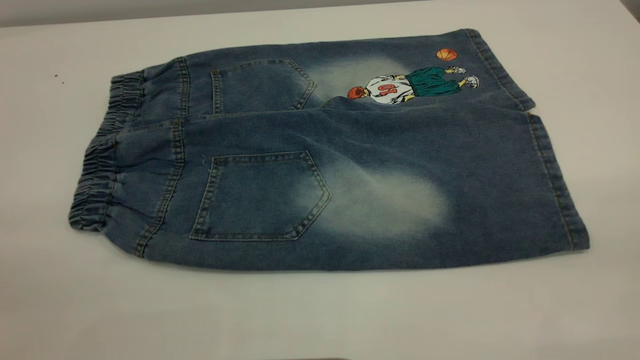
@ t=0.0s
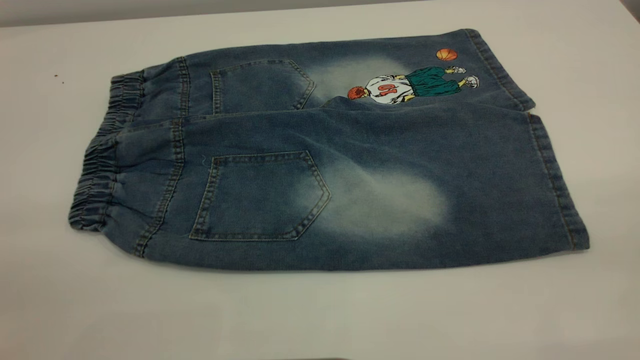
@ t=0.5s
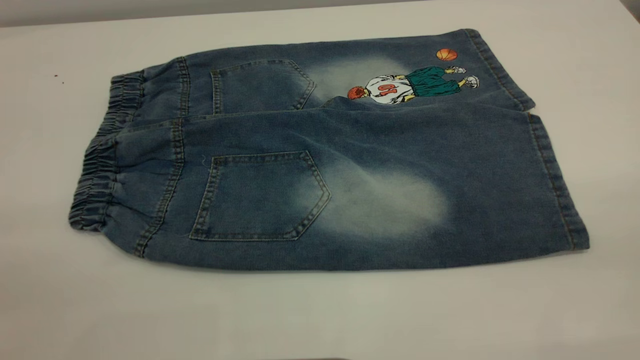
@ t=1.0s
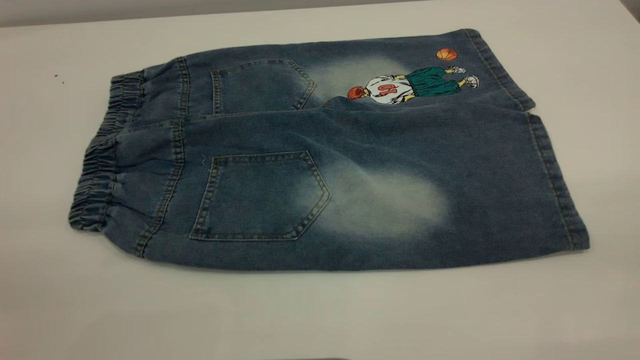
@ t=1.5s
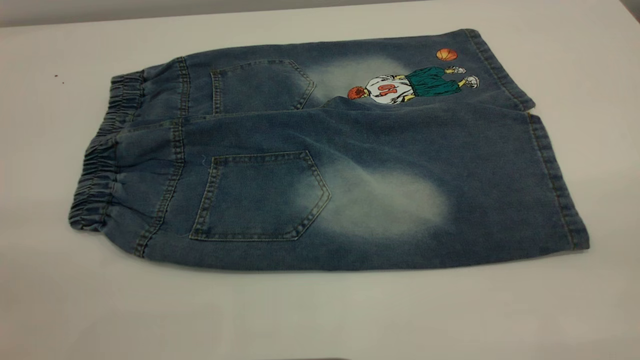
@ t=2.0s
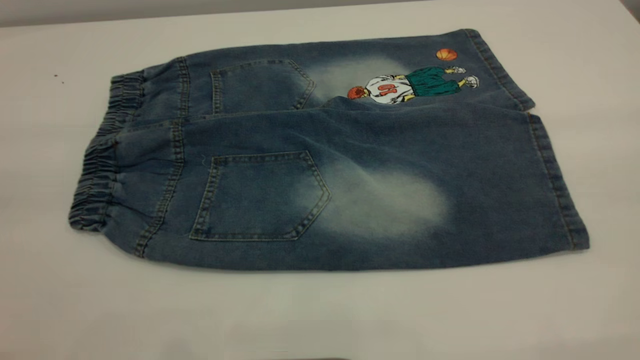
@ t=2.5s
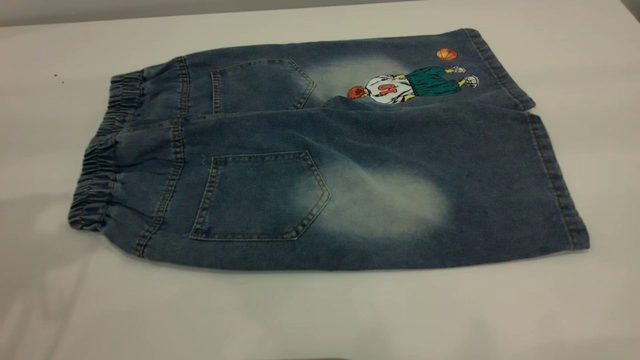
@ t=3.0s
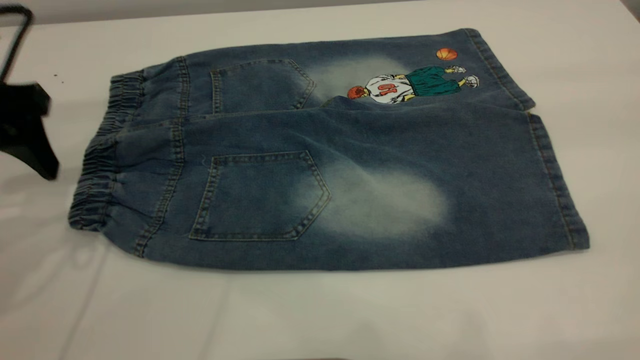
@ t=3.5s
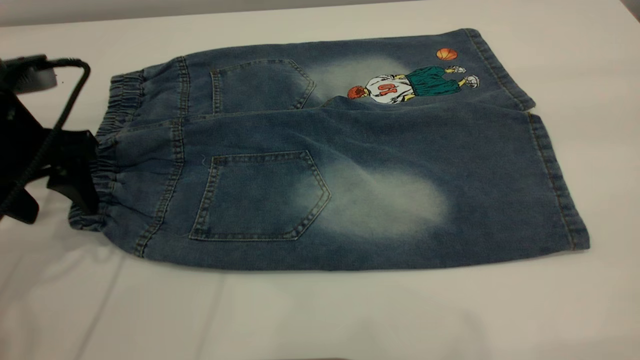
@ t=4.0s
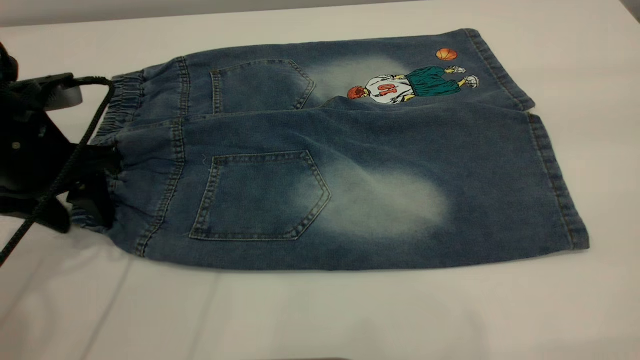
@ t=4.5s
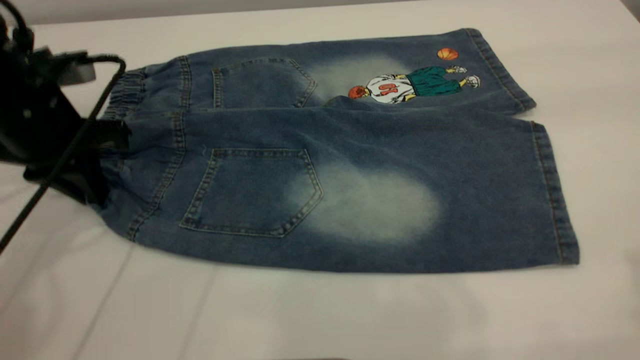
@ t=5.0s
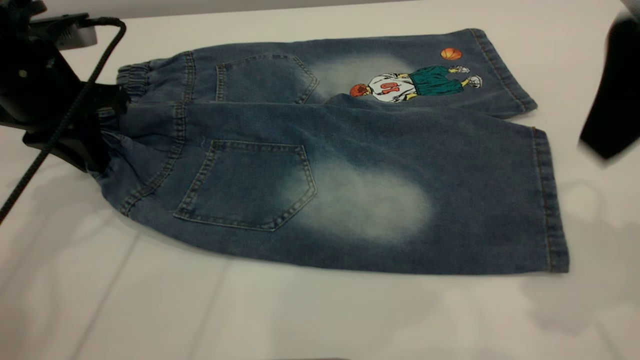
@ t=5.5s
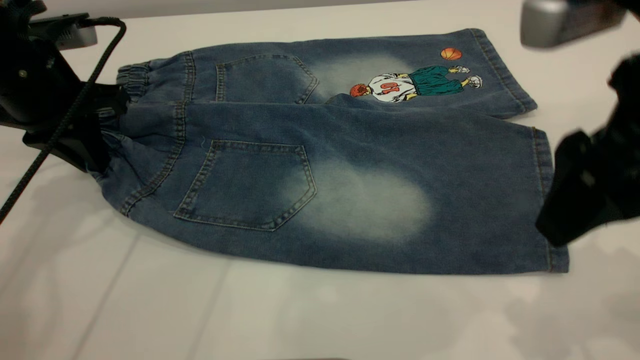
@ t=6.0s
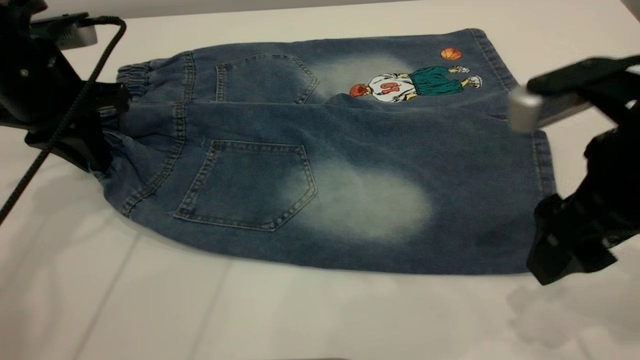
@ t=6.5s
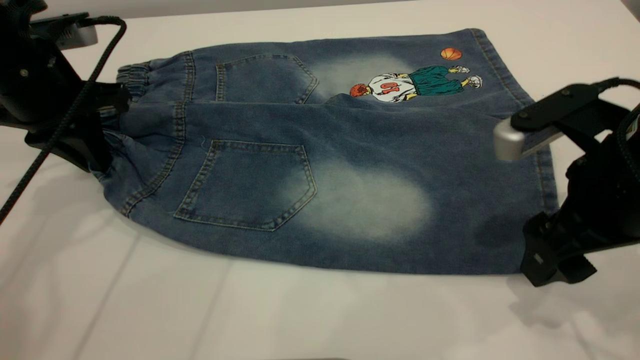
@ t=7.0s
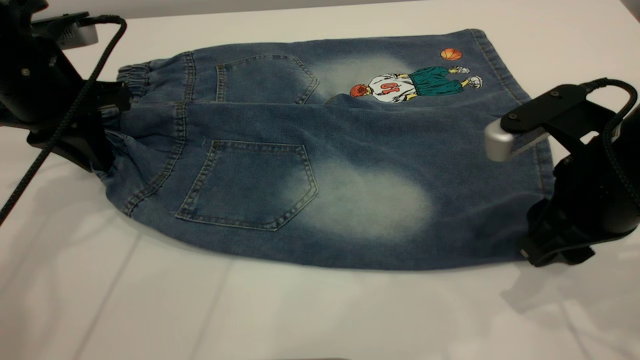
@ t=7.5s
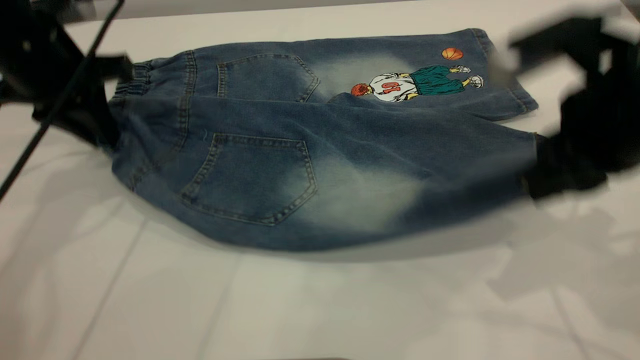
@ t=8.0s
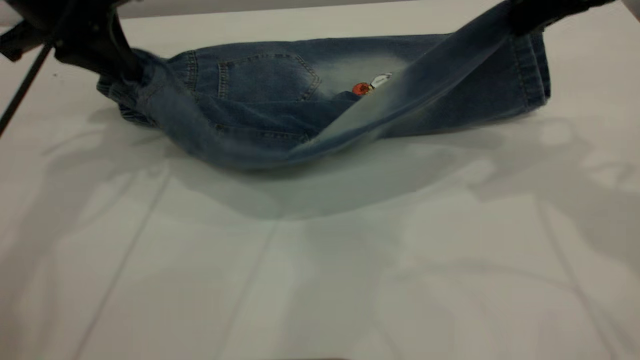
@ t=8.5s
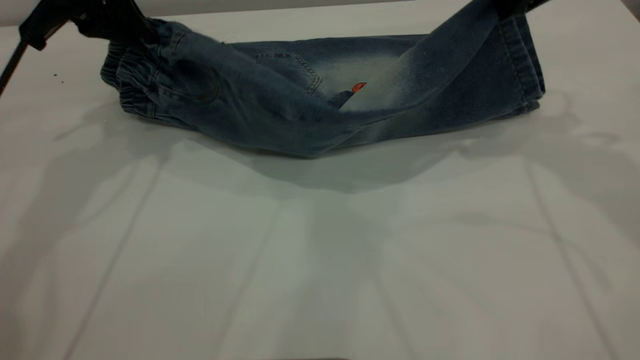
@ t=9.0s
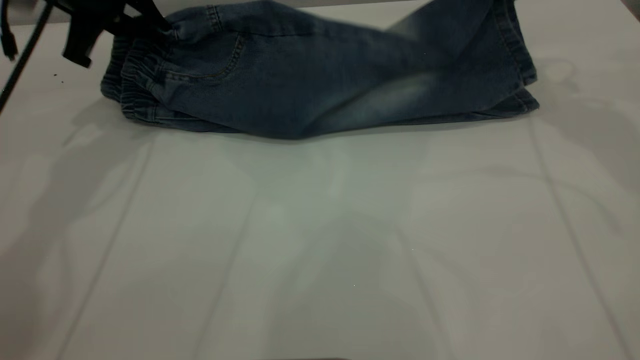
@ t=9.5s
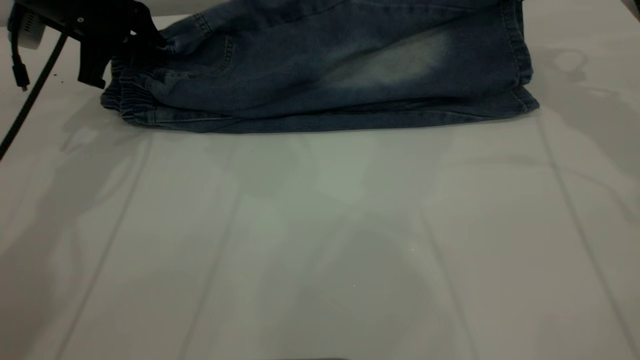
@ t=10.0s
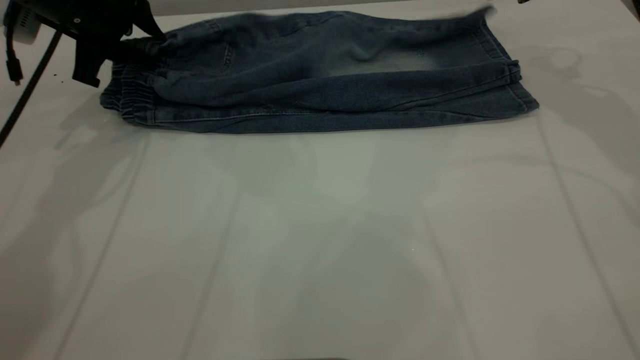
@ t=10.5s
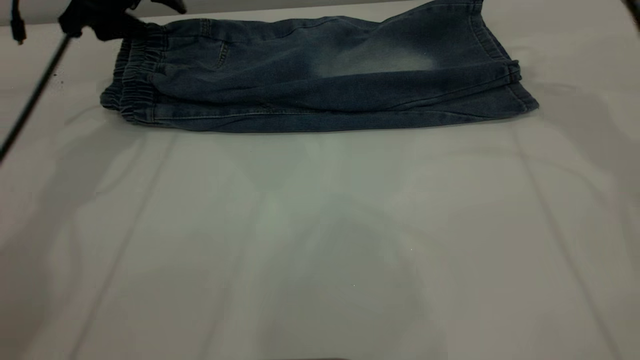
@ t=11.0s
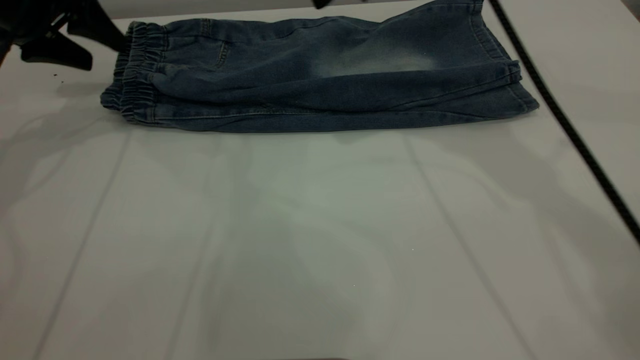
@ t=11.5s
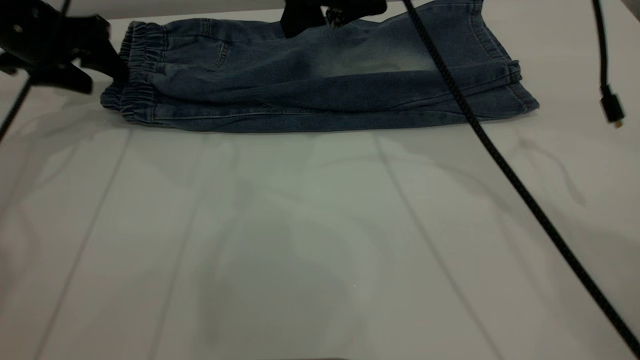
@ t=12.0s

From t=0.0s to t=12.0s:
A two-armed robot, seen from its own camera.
Step, from t=0.0s to t=11.0s: Fold the bottom of the pants upward.
From t=0.0s to t=2.0s: Both grippers stay put.
From t=2.0s to t=4.0s: The left gripper is displaced forward and downward by approximately 35 cm.
From t=4.0s to t=6.0s: The right gripper is displaced downward, forward and to the left by about 25 cm. Meanwhile the left gripper is displaced forward by some 5 cm, and closes up.
From t=6.0s to t=8.0s: The right gripper goes downward and returns, about 10 cm each way, and closes.
From t=8.0s to t=10.0s: The right gripper travels forward by some 20 cm. The left gripper is displaced forward by approximately 5 cm.
From t=10.0s to t=12.0s: The right gripper moves to the left, roughly 20 cm, and opens up. Meanwhile the left gripper moves to the left, roughly 5 cm, and opens up.

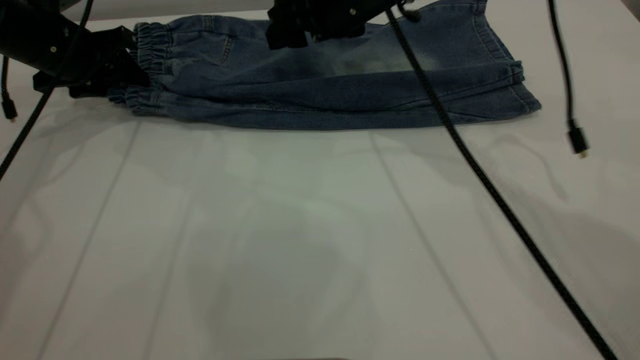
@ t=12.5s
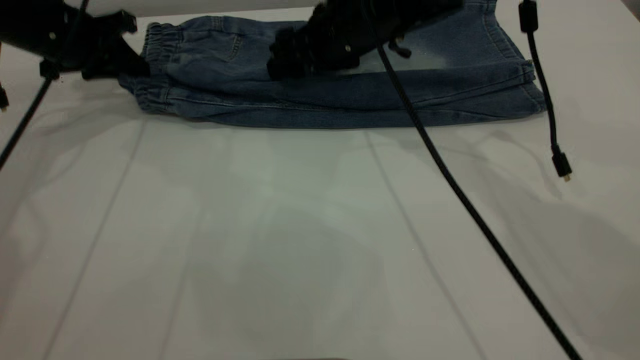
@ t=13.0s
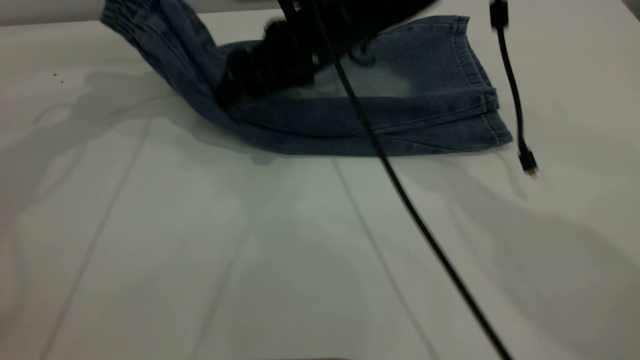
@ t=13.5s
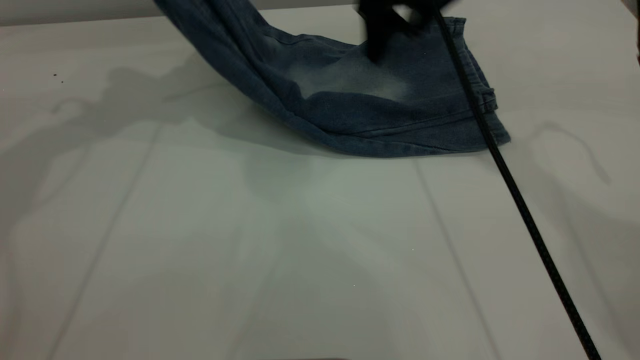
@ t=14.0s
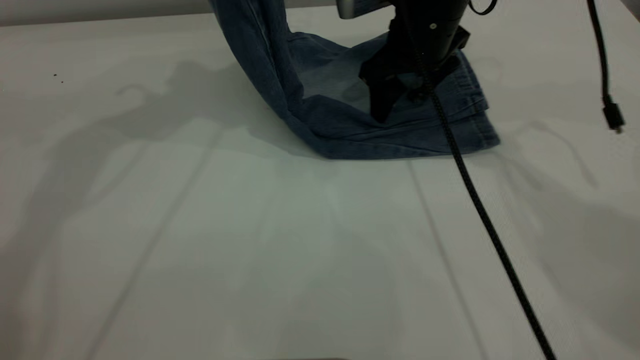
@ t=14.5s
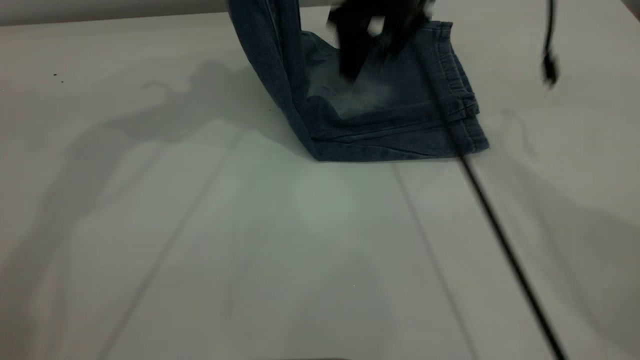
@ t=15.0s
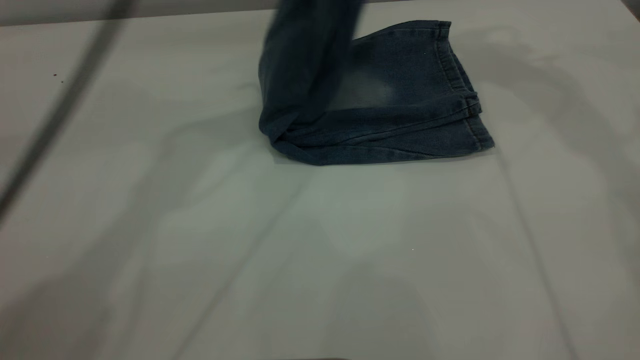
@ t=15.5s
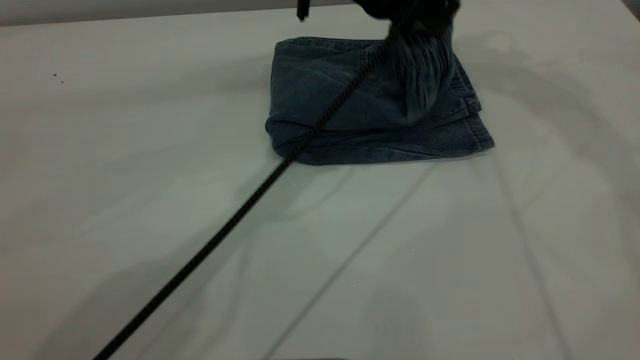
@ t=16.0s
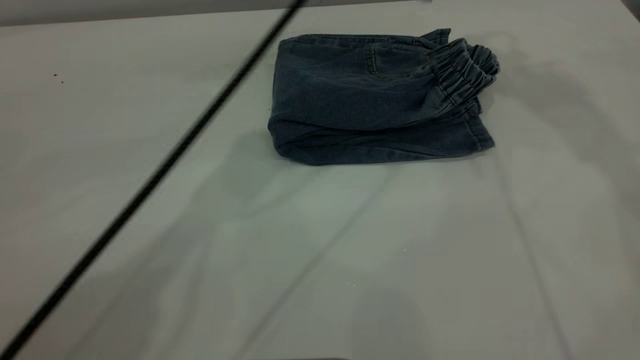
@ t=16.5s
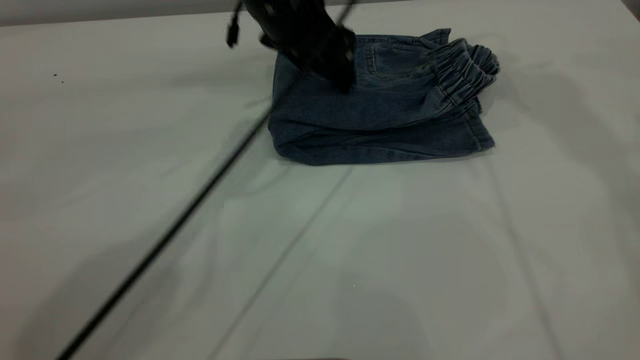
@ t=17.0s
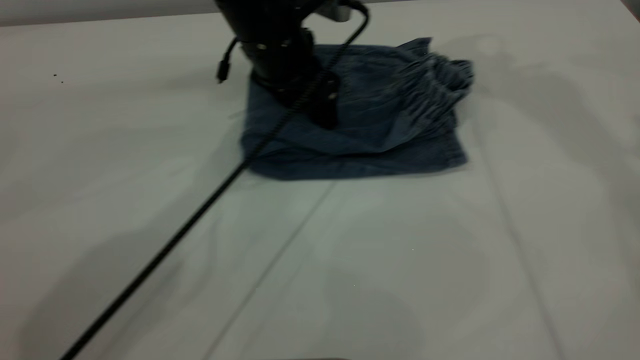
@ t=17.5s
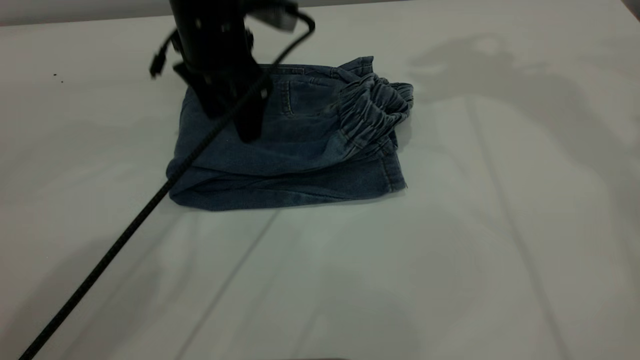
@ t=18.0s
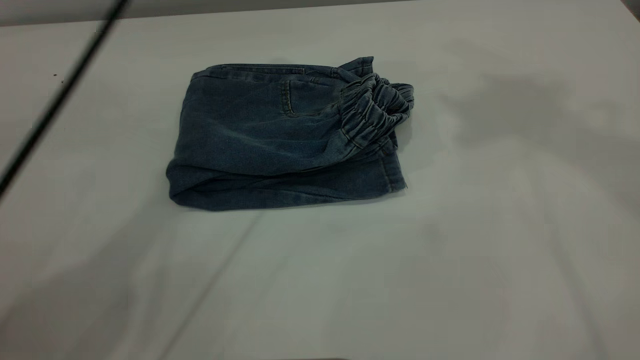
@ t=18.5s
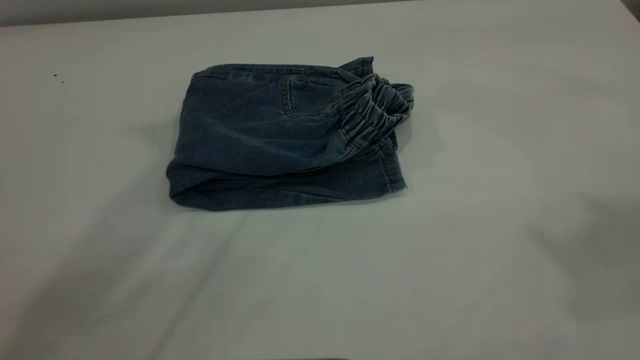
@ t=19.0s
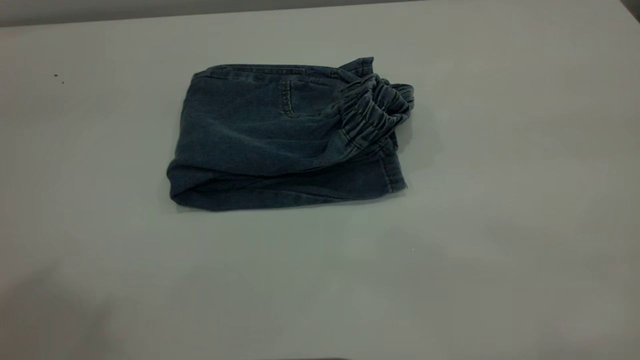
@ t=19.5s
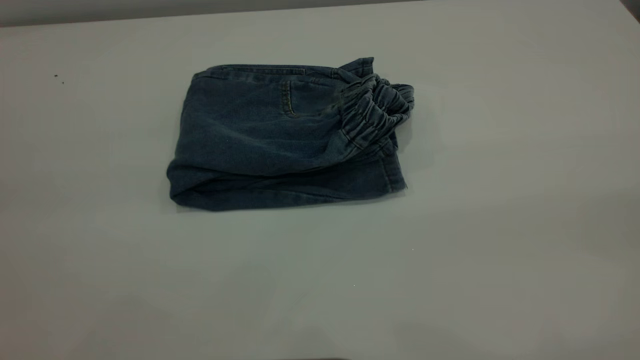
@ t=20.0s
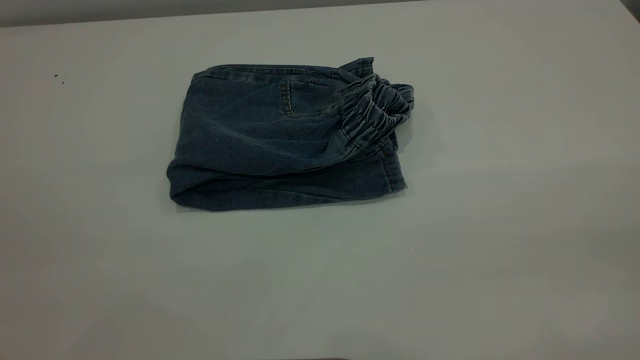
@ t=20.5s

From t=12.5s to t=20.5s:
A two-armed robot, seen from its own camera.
Step, from t=12.5s to t=16.5s: Fold the pants from left to right.
From t=12.5s to t=14.5s: The right gripper travels to the right by approximately 5 cm; the left gripper travels upward and to the right by approximately 25 cm, and closes up.
From t=14.5s to t=16.5s: The right gripper travels upward by some 25 cm, while the left gripper heads to the right and downward, covering roughly 20 cm, and opens its fingers.
From t=16.5s to t=18.5s: The left gripper is displaced upward and to the left by approximately 15 cm. The right gripper is displaced upward and backward by about 20 cm.
From t=18.5s to t=20.5s: The left gripper shifts some 40 cm backward and to the left.
